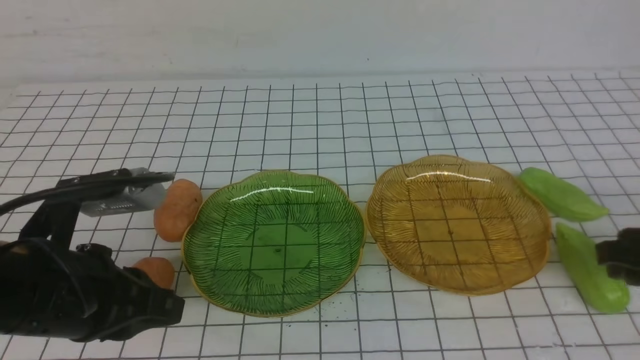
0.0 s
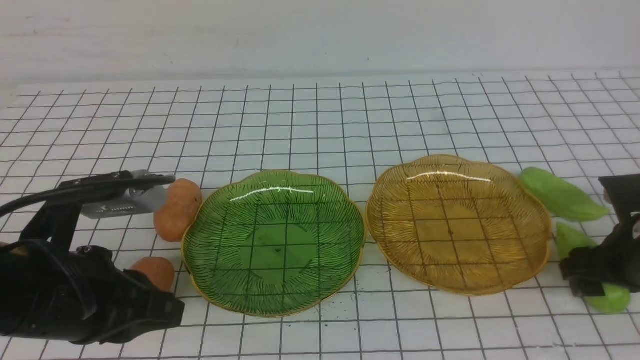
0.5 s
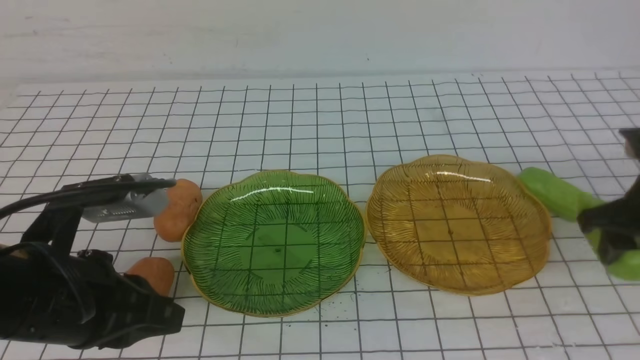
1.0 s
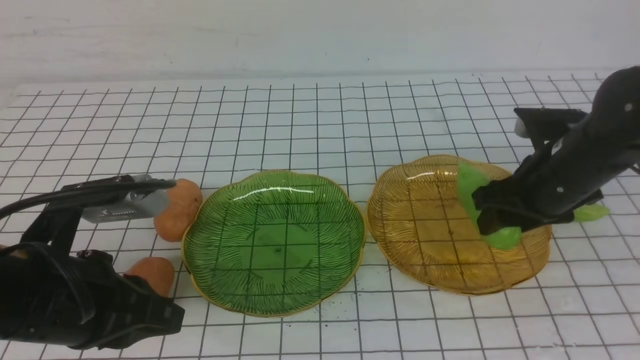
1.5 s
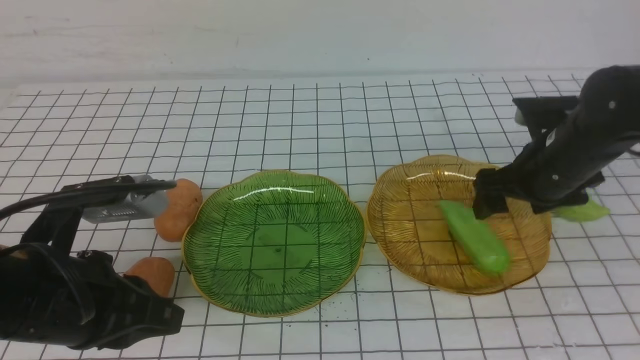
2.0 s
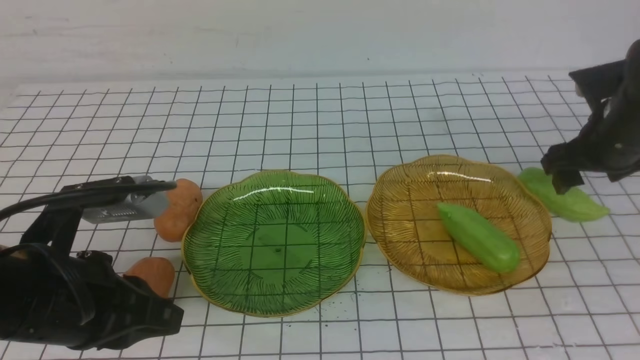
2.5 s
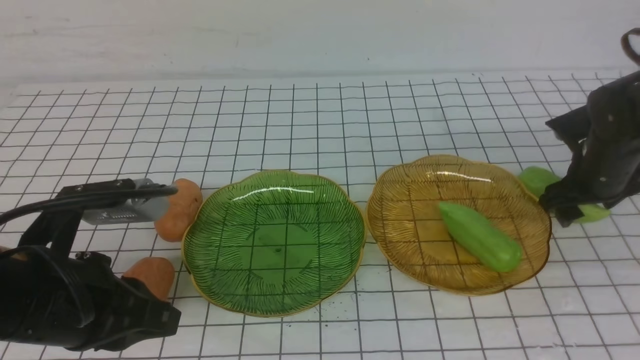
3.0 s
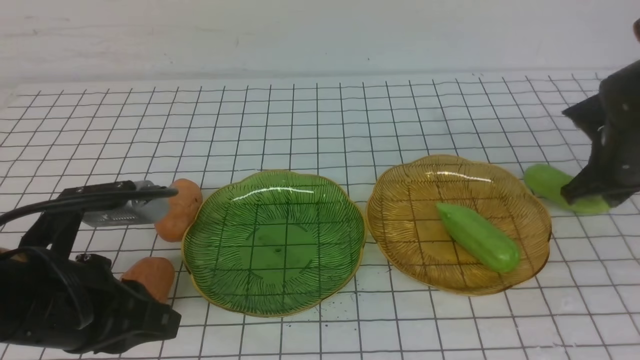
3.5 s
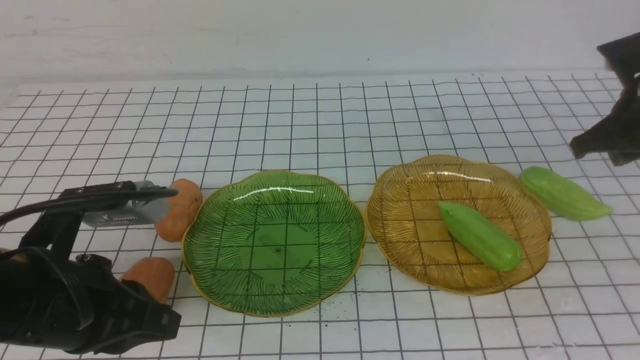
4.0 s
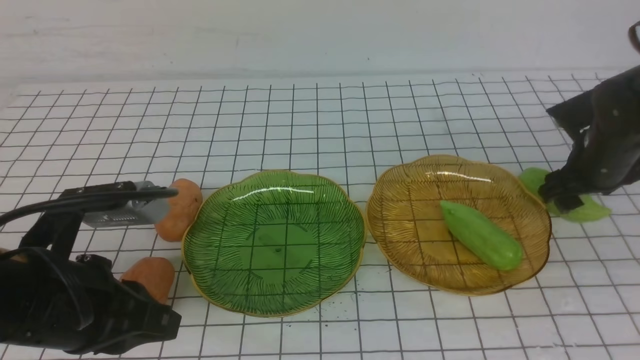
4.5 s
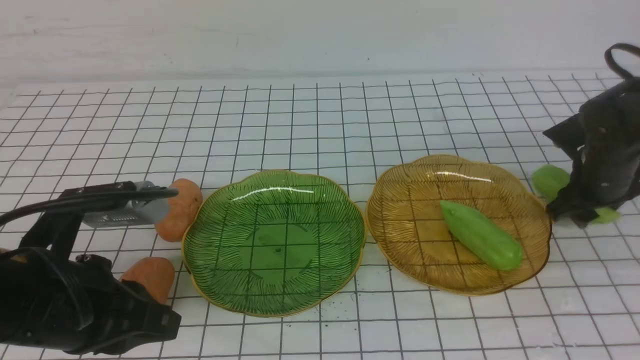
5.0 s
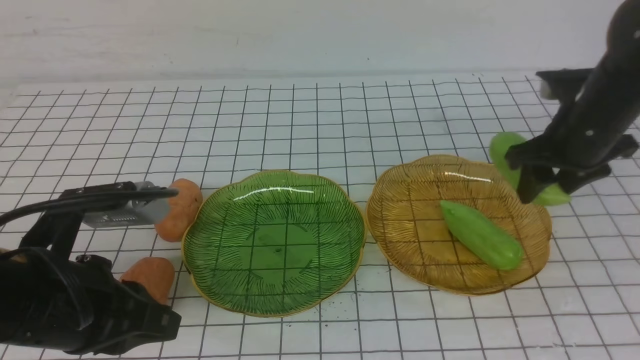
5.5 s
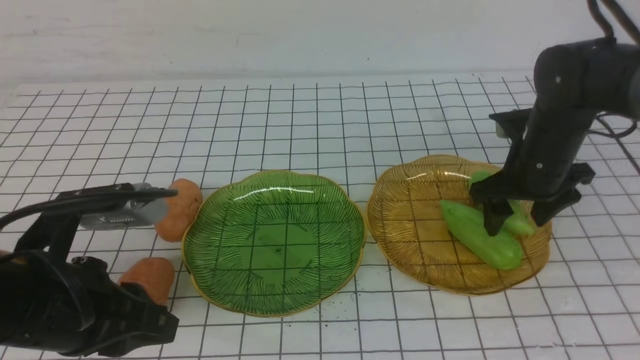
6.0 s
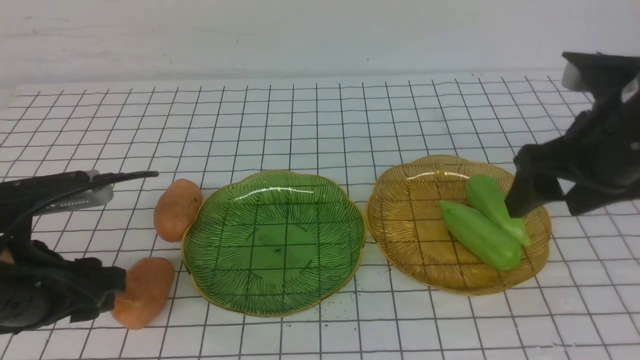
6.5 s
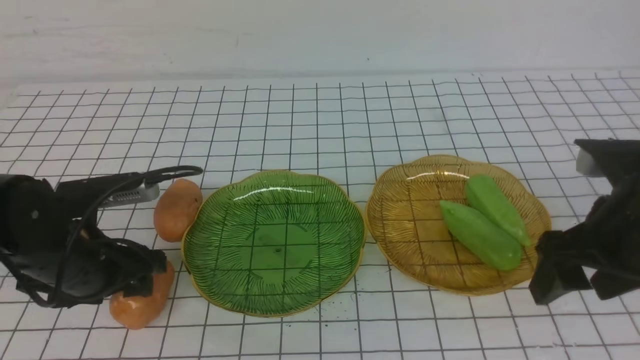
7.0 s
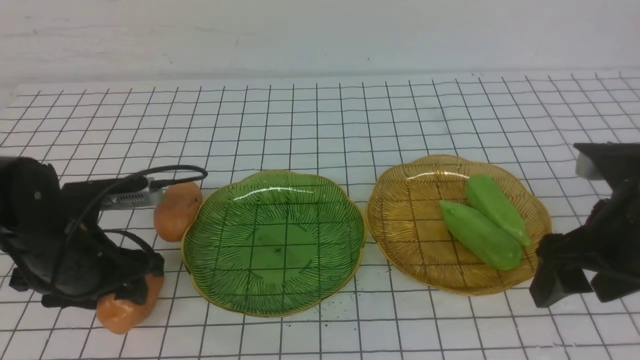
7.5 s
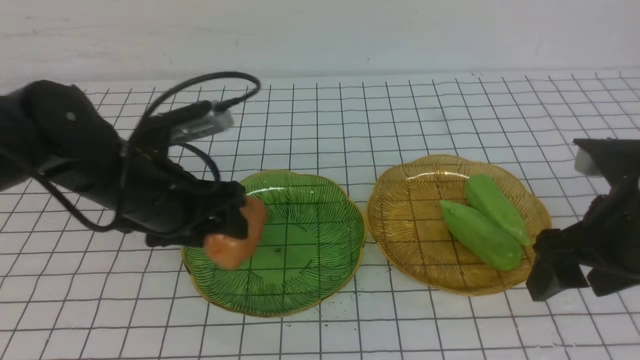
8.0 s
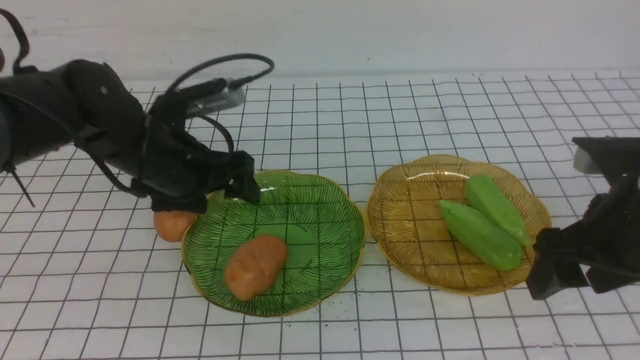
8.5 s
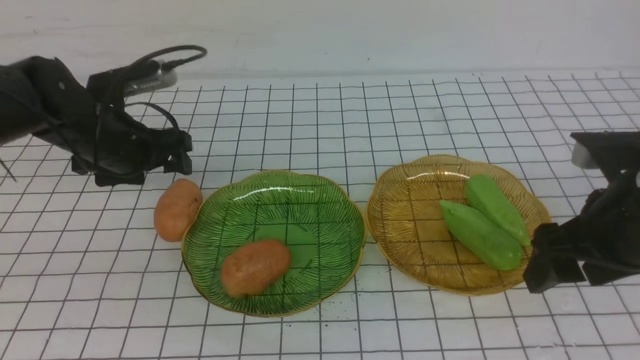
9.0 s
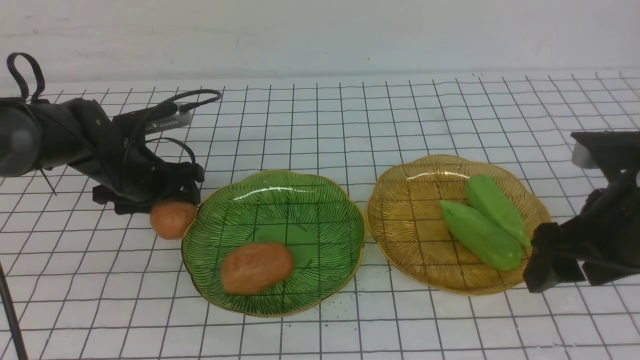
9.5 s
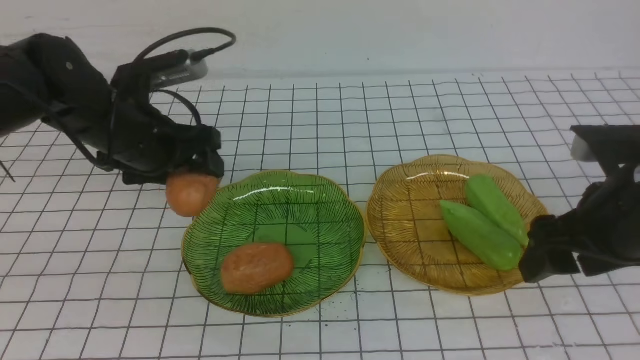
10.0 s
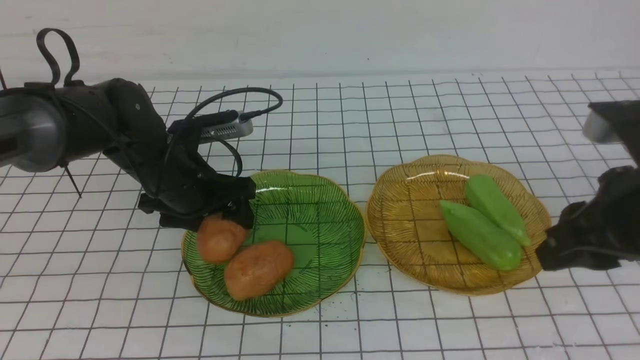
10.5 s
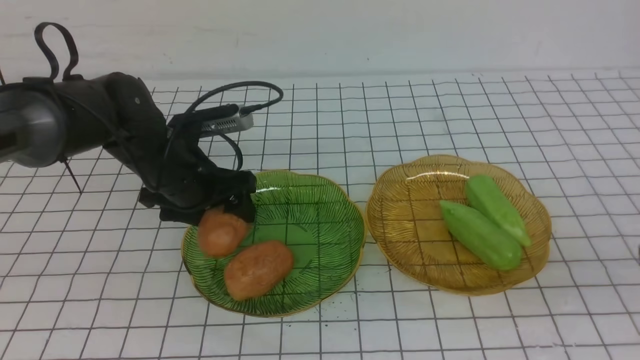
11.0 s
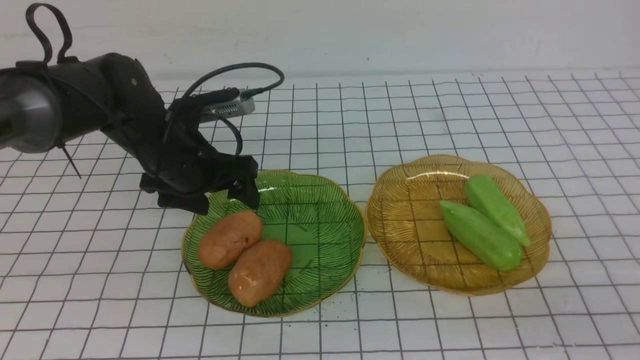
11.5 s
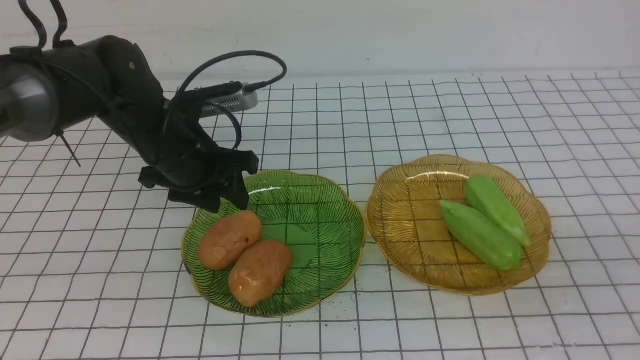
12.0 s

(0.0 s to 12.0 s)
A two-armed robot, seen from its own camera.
Step, 0.0 s - 6.0 s: use the right arm to grab a chayote and put it into the right plate.
Step, 6.5 s - 8.0 s: Grab a potato with your left arm and put it on the left plate.
Step, 8.5 s - 11.5 s: Grab a potato with your left arm and put it on the left plate.
0.0 s - 2.0 s: The right gripper moves forward and to the left, some 15 cm, and opens up.
2.0 s - 4.0 s: The right gripper heads to the right, covering about 10 cm, and closes its fingers.
4.0 s - 6.0 s: The right gripper goes some 10 cm to the left, and opens up.
6.0 s - 8.0 s: The right gripper goes some 15 cm backward. The left gripper is displaced forward by approximately 15 cm, and opens.
8.0 s - 10.0 s: The left gripper goes roughly 5 cm forward.
10.0 s - 12.0 s: The right gripper goes roughly 15 cm backward, and closes up. Meanwhile the left gripper closes up.

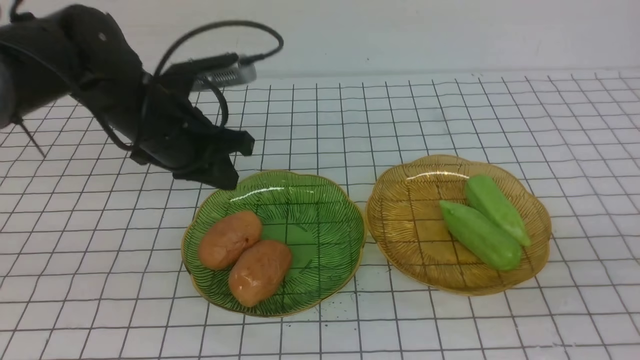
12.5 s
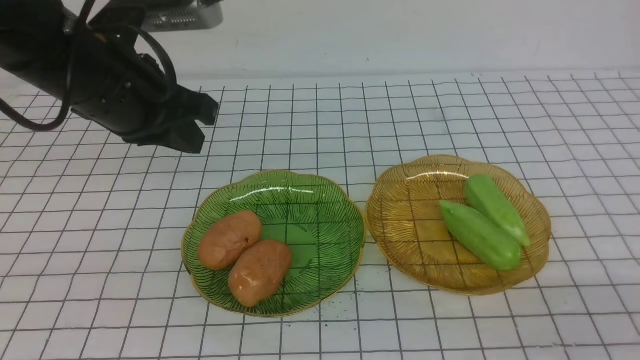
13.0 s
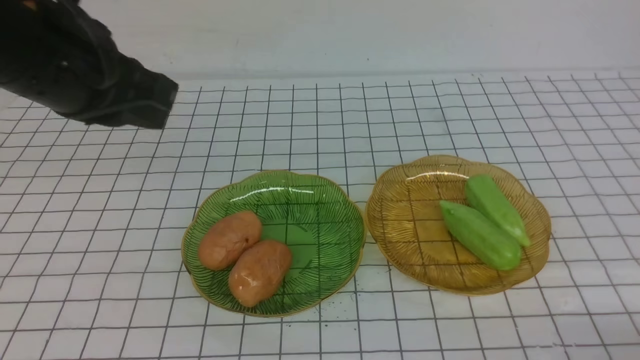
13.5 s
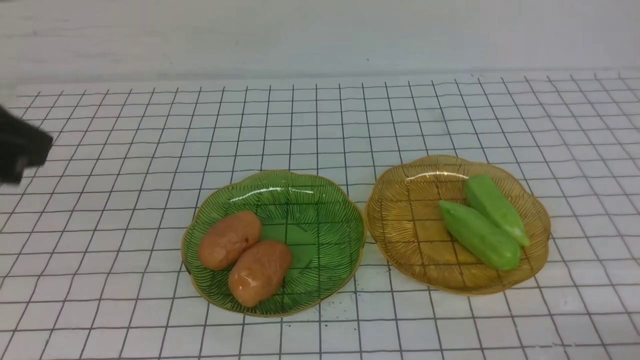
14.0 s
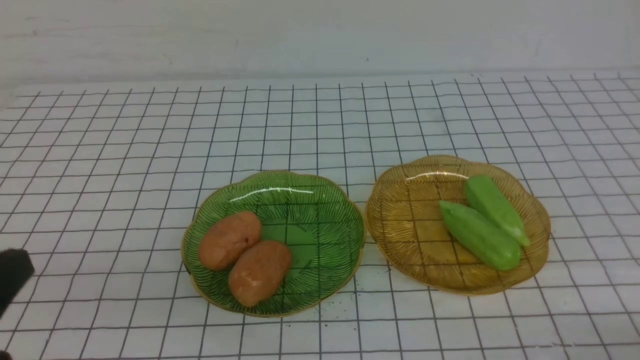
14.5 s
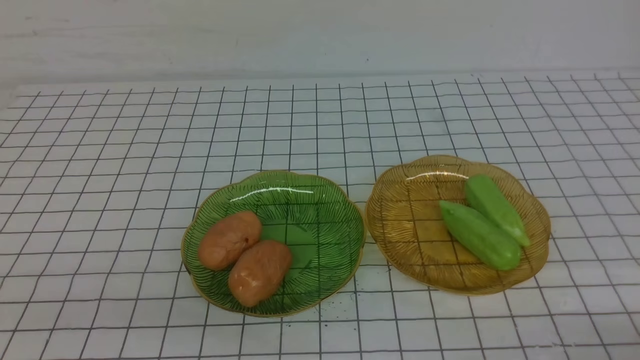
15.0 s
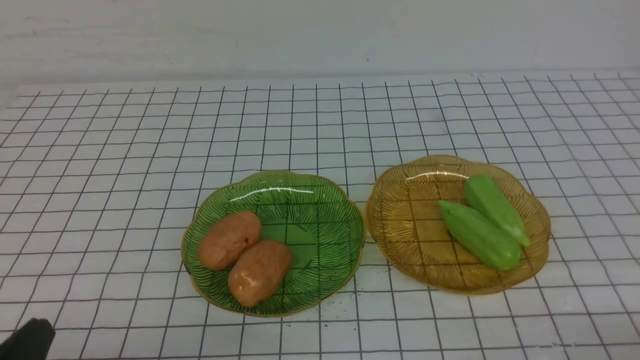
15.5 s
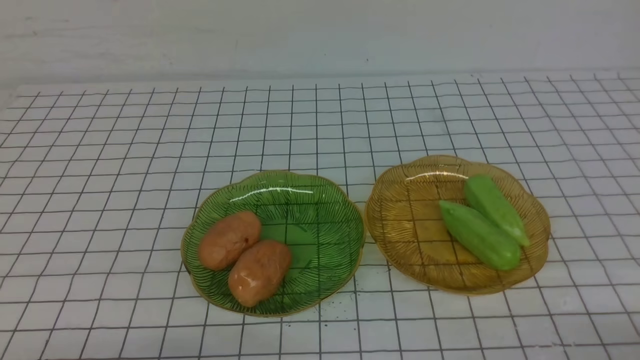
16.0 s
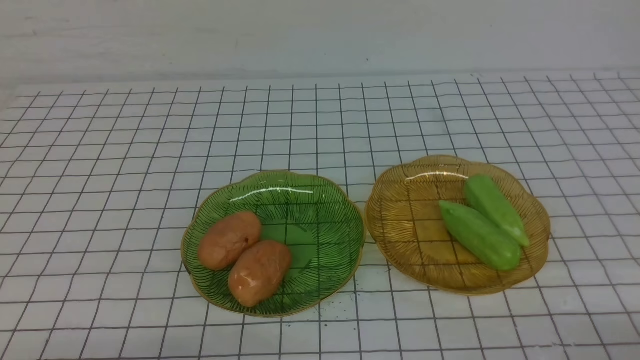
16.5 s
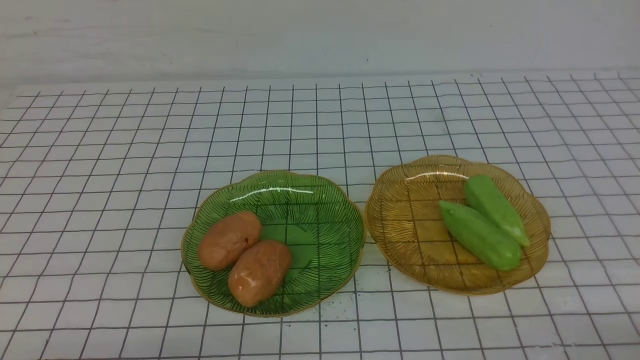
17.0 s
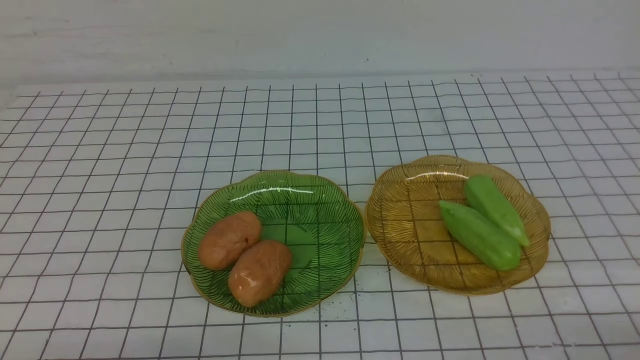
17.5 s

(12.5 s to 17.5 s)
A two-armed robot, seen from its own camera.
12.5 s - 15.0 s: The left gripper moves backward, roughly 30 cm. Meanwhile the right gripper moves downward, about 10 cm.
